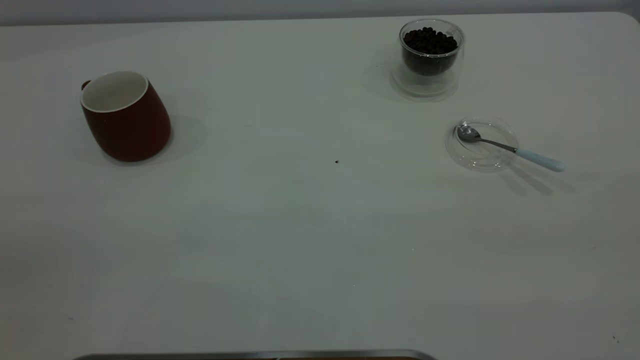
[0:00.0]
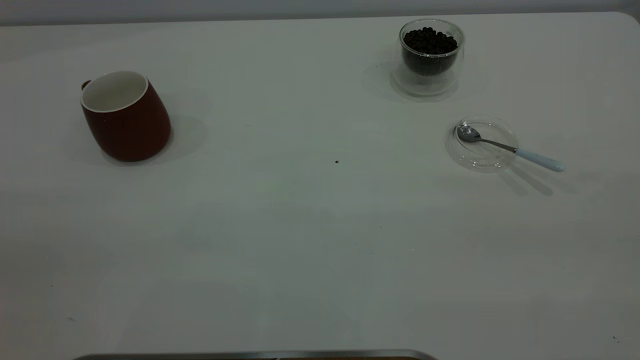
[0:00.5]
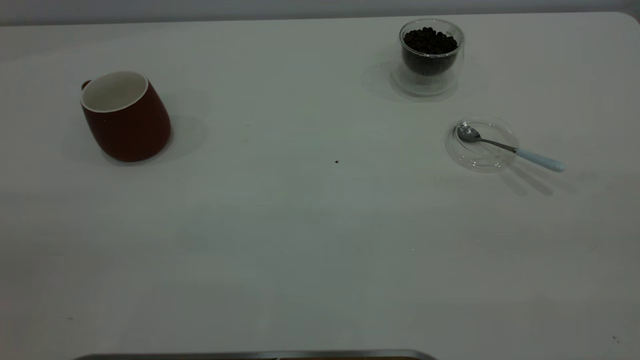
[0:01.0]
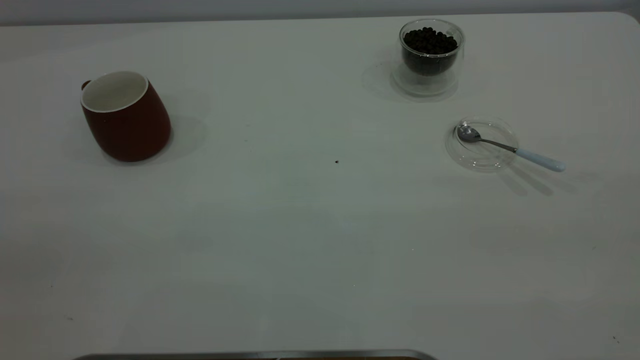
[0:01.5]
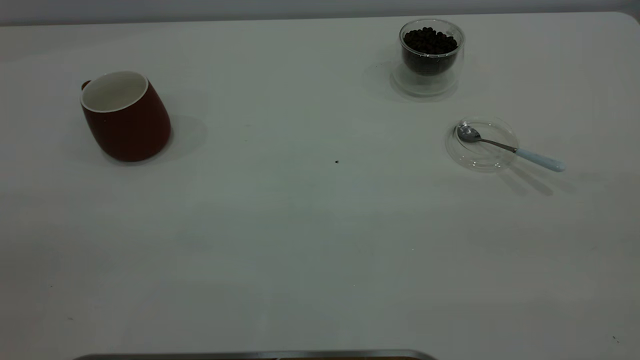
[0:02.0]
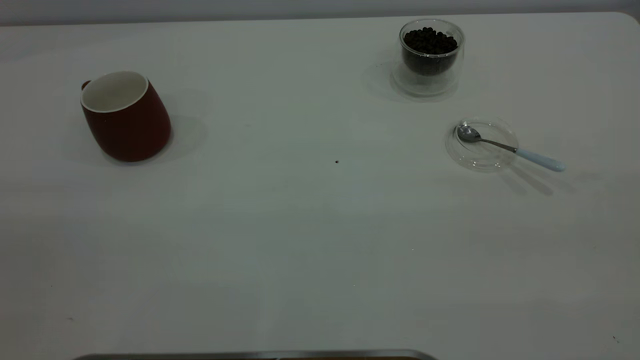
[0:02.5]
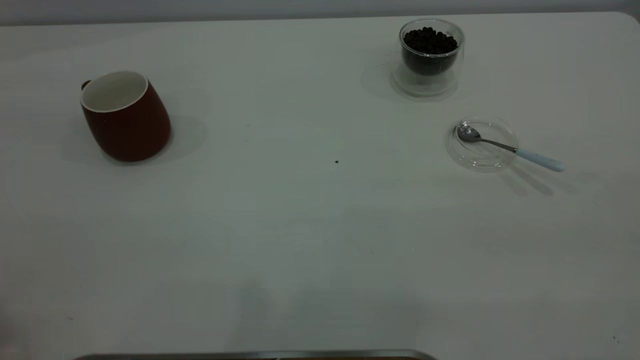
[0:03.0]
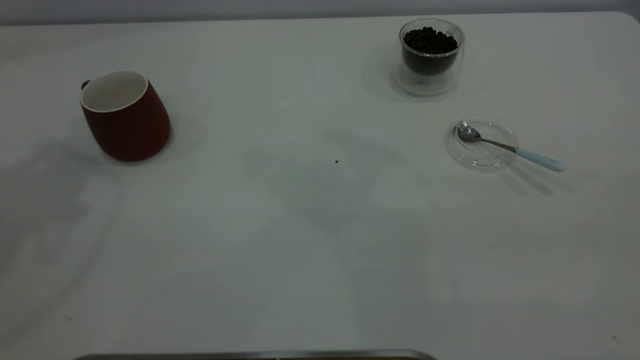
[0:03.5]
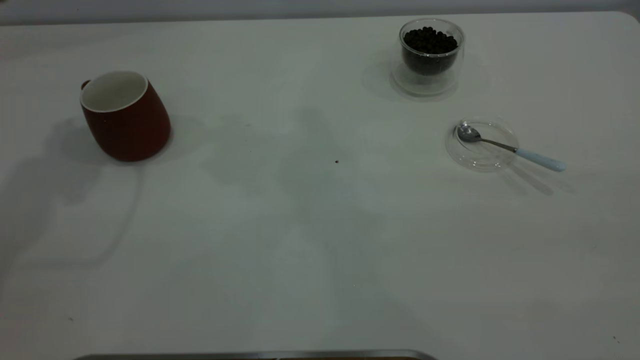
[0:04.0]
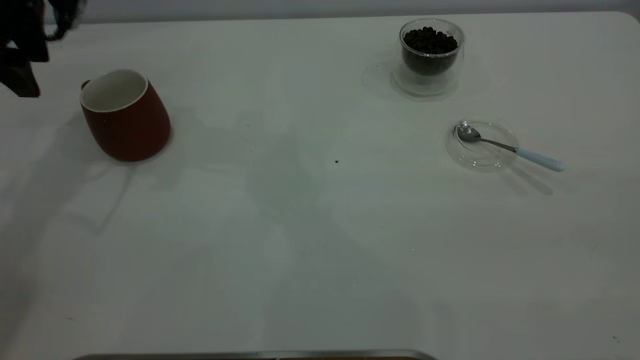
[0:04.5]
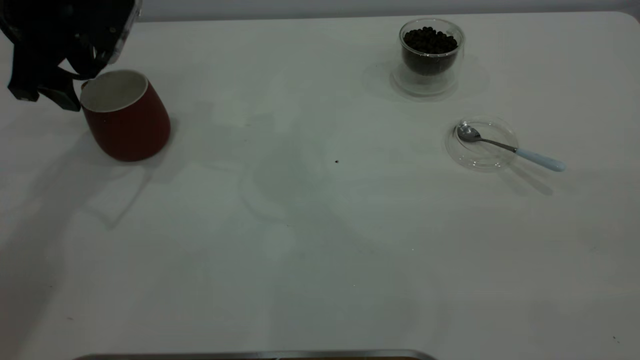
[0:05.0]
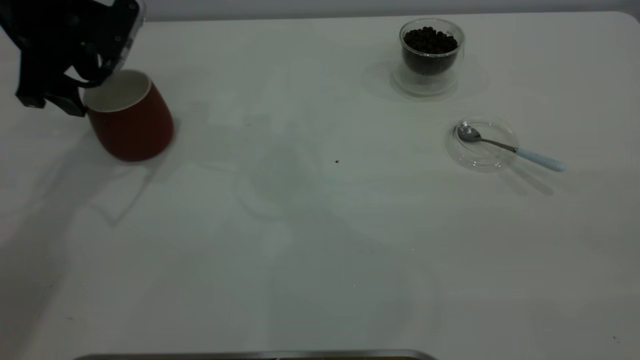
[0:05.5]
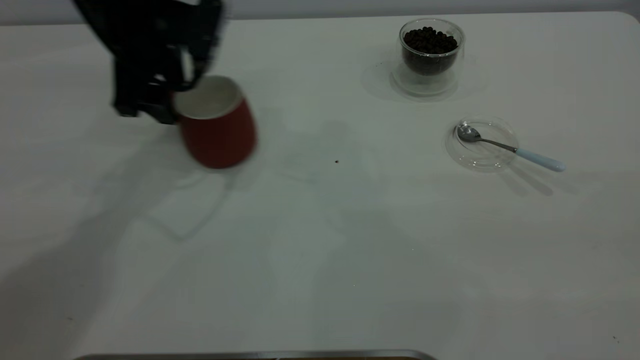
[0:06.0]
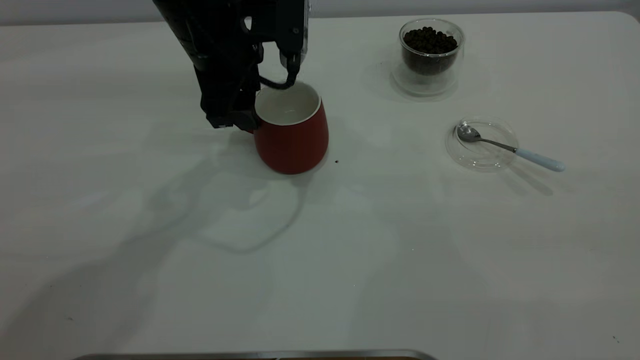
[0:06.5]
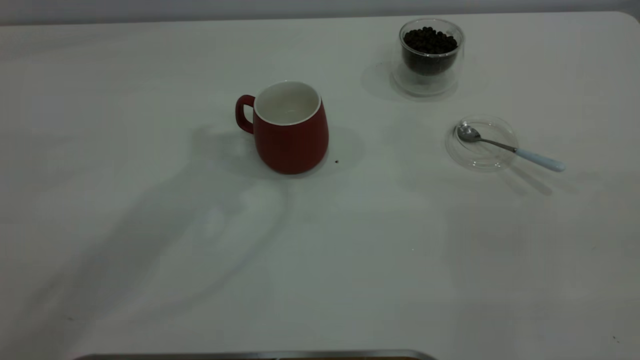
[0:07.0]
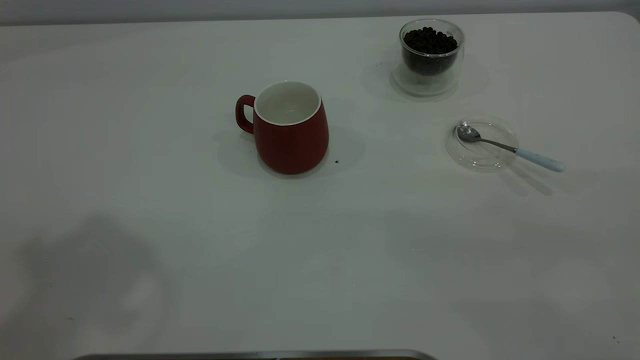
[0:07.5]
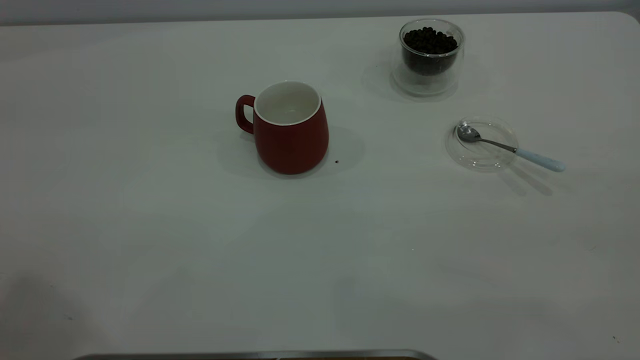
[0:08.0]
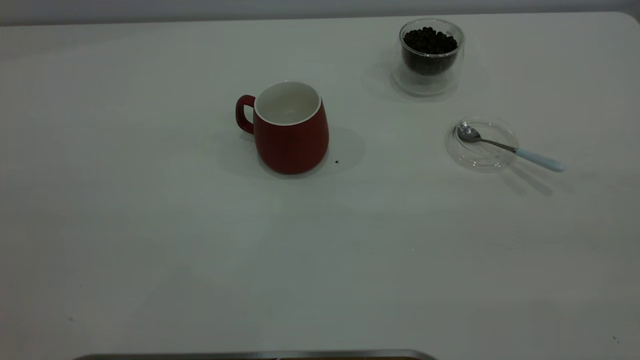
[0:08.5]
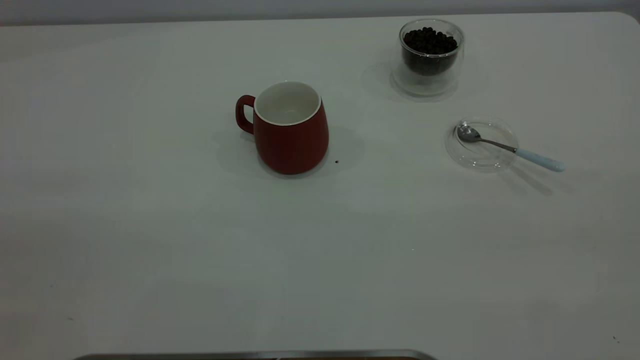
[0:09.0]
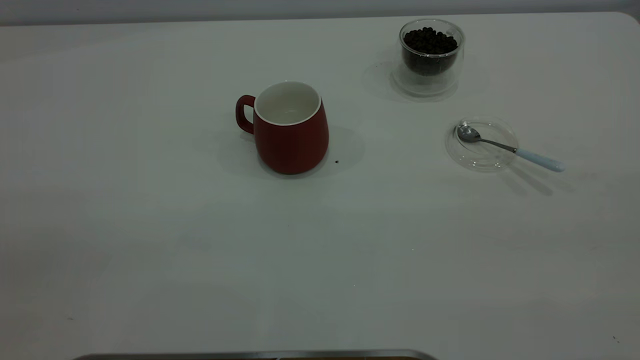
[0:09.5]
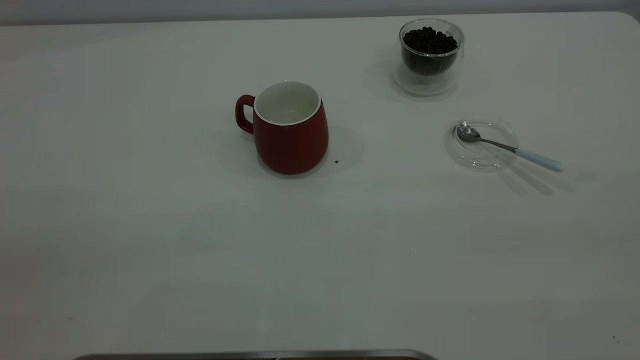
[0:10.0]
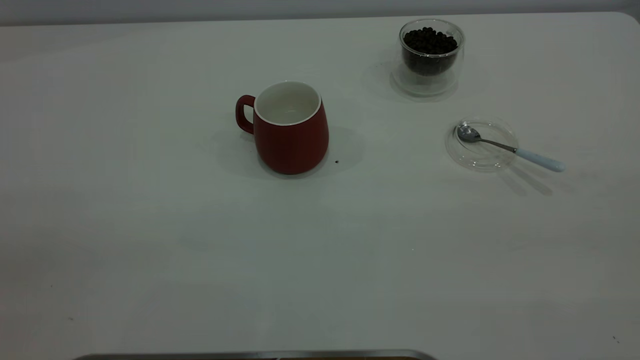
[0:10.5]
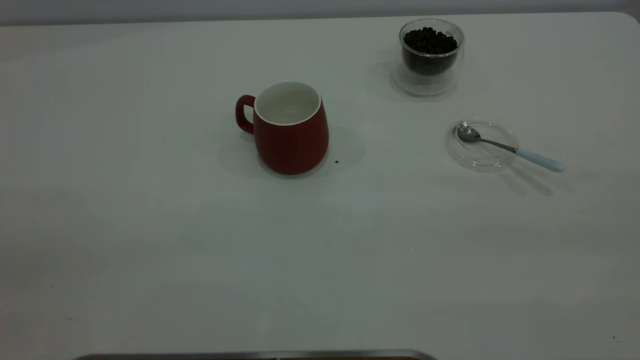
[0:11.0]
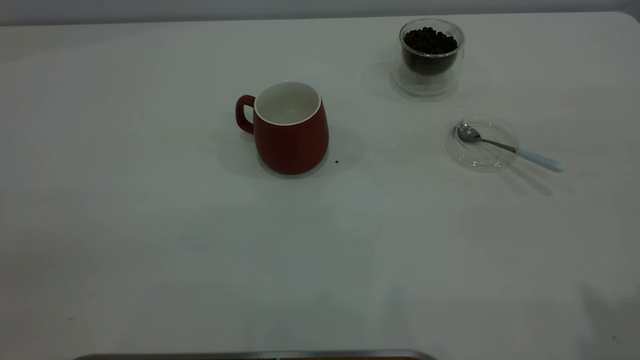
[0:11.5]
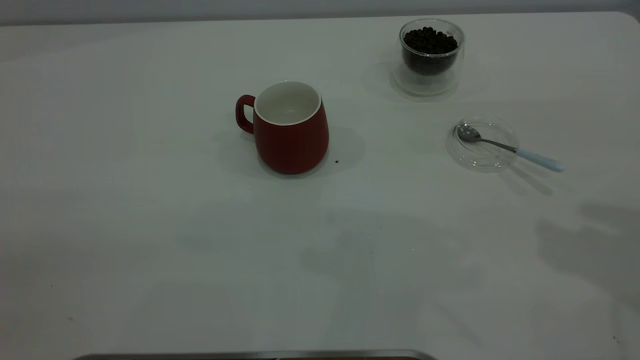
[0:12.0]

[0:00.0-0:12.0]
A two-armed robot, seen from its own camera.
Task of the whole recording: the left gripper place the red cup in the center of the table, the right gripper take the blue spoon from the cup lid and scoop out the coffee beans from the coffee cup and put them into the red cup, the right gripper put the spoon back into the cup lid.
Step, 0:00.0 to 0:06.5: Move the cup to the center of view.
0:00.0 to 0:02.0: Neither gripper changes place.
0:04.0 to 0:06.0: The left gripper goes about 20 cm downward and to the right.
0:06.0 to 0:08.0: The left gripper goes some 40 cm upward and backward.

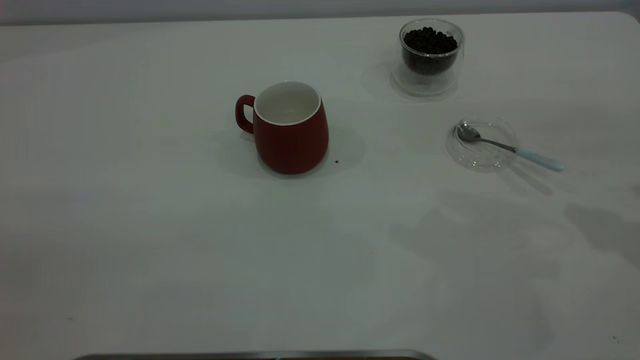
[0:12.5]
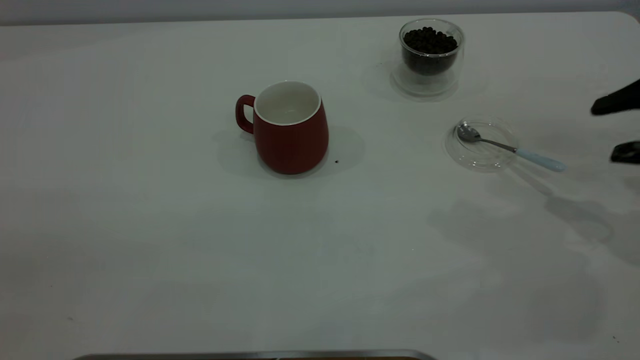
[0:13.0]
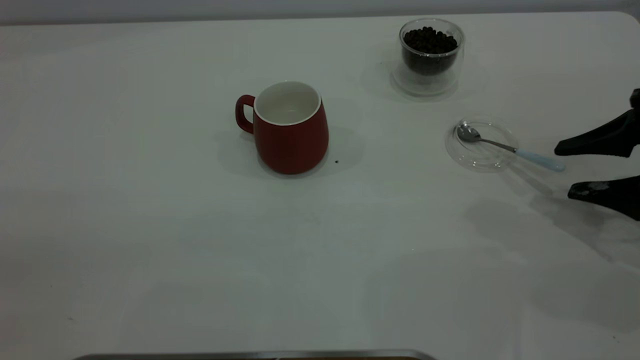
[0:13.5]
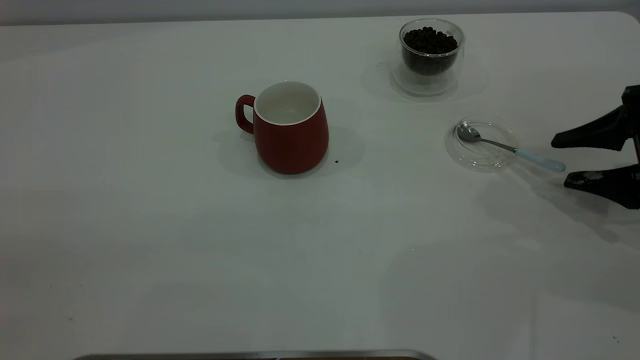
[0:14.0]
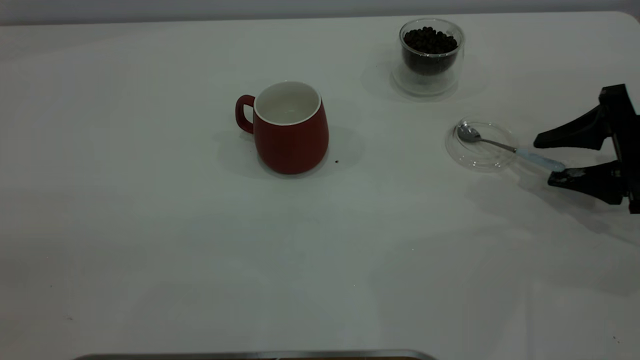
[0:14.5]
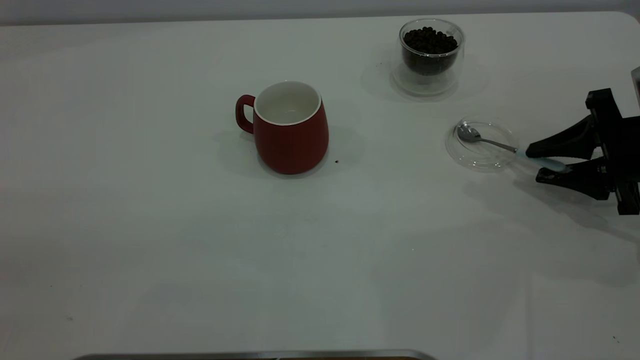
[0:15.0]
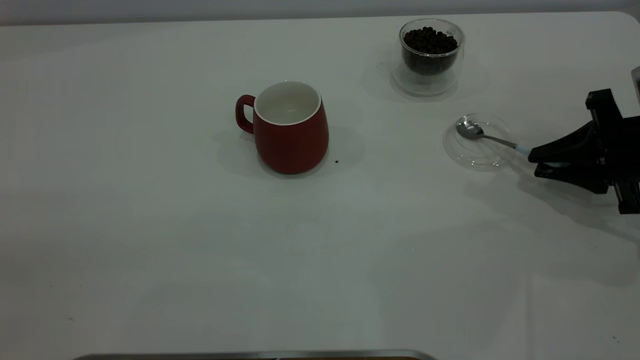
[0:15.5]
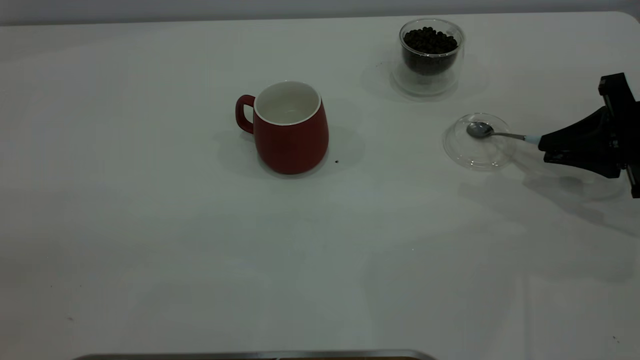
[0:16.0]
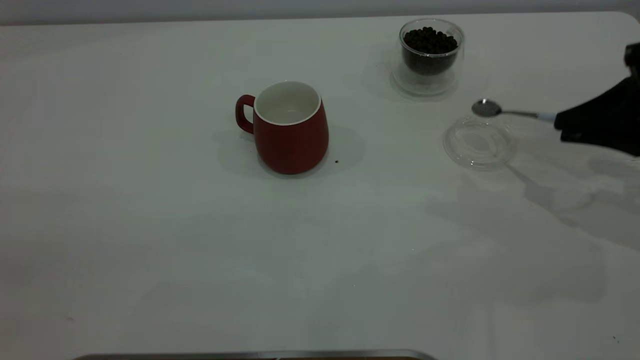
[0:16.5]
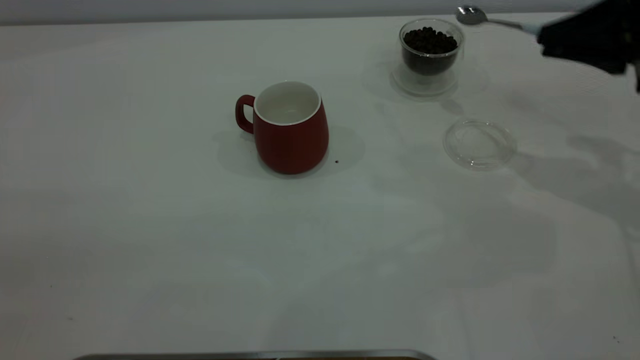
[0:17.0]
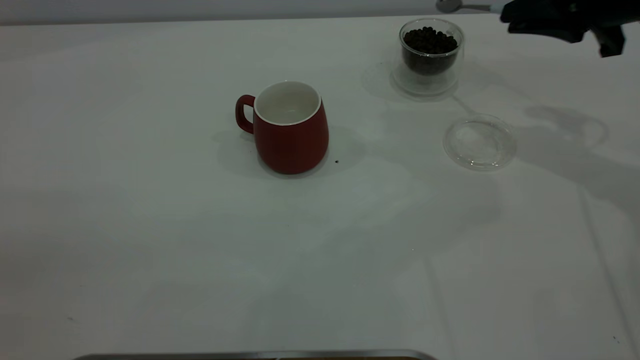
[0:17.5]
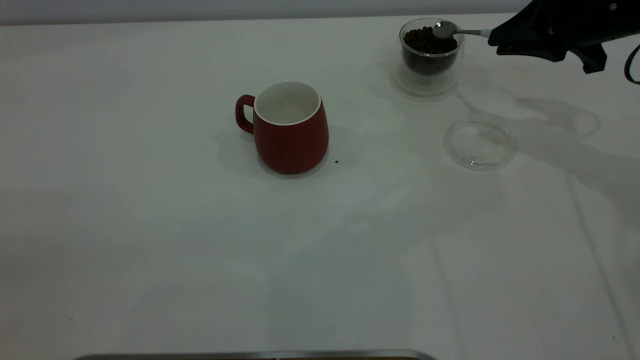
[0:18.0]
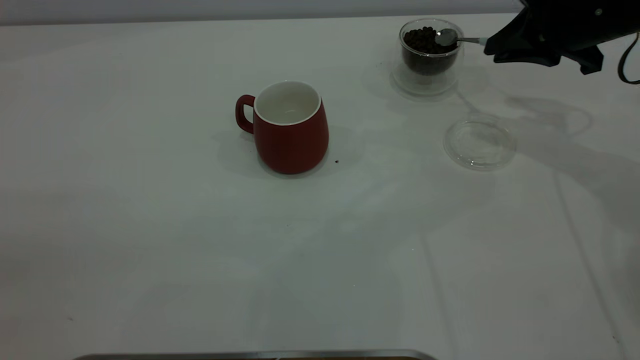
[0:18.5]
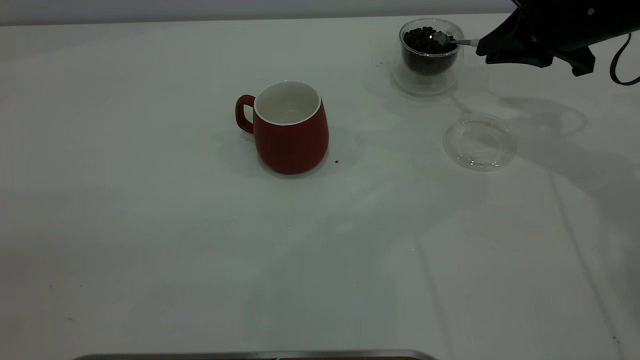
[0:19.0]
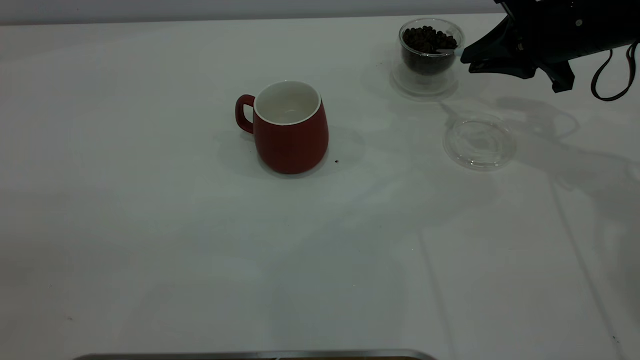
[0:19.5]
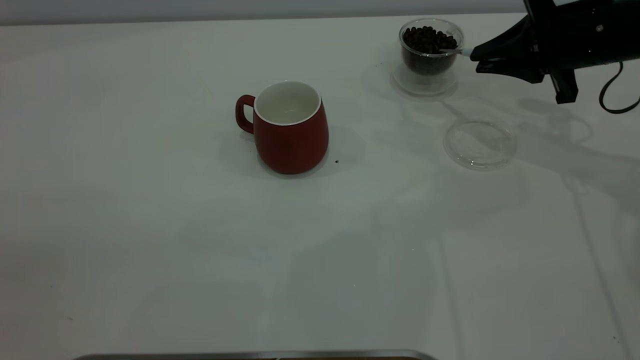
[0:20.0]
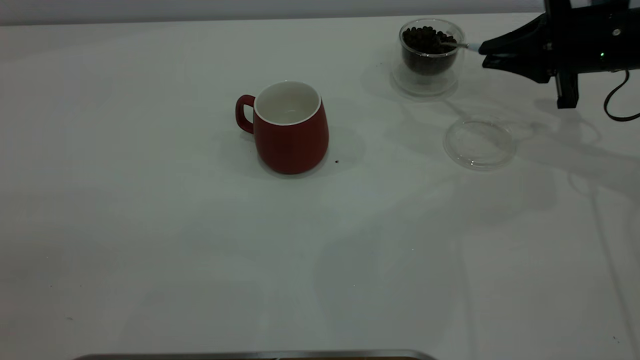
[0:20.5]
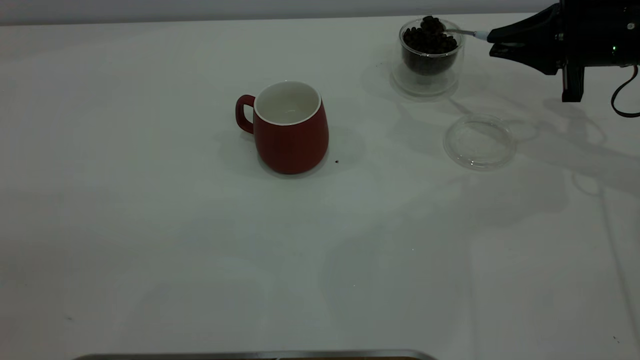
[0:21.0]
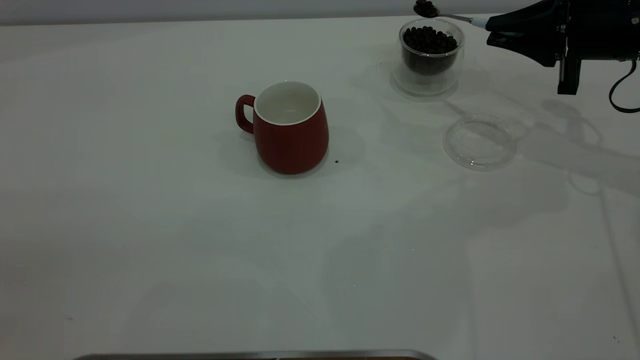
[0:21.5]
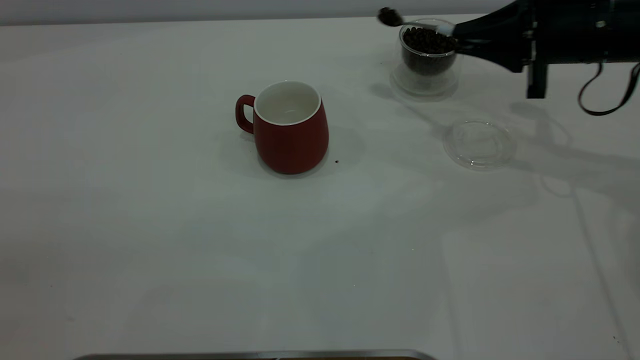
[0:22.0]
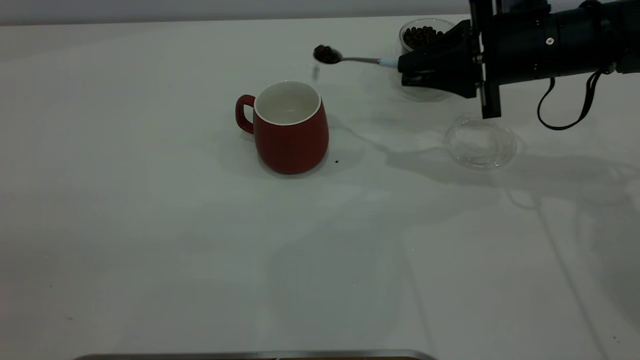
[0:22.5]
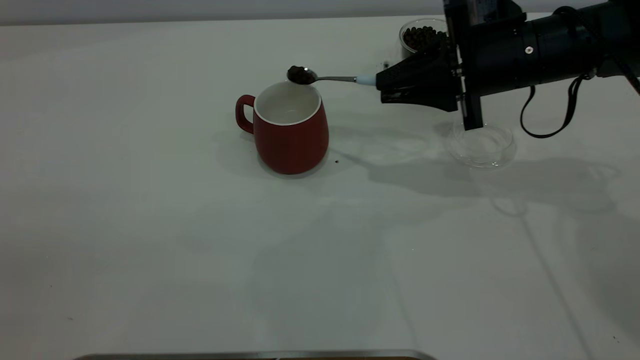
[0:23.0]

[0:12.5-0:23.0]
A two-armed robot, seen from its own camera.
Task of the whole recording: the left gripper place the red cup in the center of the table, the right gripper take the blue spoon from the cup lid and scoop out the coffee beans from the coffee cup and put them into the red cup, the right gripper put the spoon back into the cup lid.
Step, 0:12.5 to 0:16.0: Pick up the spoon.
0:12.5 to 0:14.5: The right gripper heads downward, covering roughly 15 cm.
0:14.5 to 0:16.5: The right gripper goes about 5 cm upward, and closes.
0:16.5 to 0:19.0: The right gripper heads forward and to the left, covering some 15 cm.
0:21.0 to 0:23.0: The right gripper travels to the left by about 10 cm.
